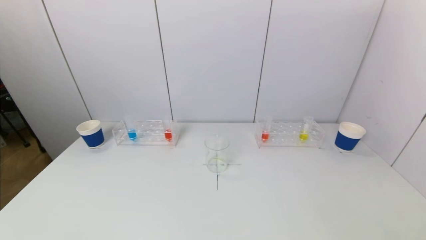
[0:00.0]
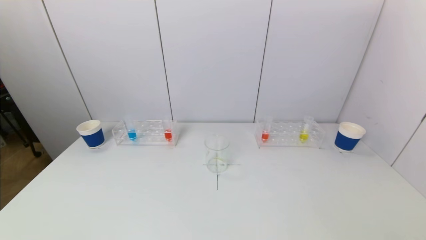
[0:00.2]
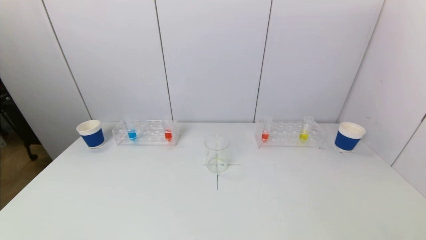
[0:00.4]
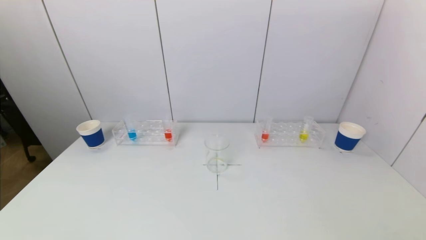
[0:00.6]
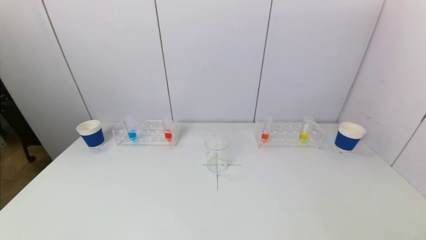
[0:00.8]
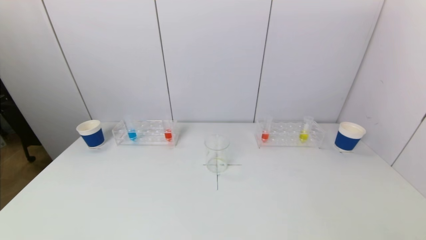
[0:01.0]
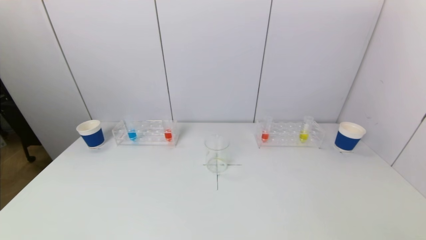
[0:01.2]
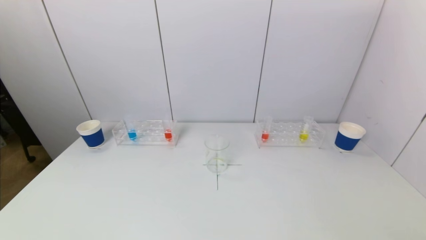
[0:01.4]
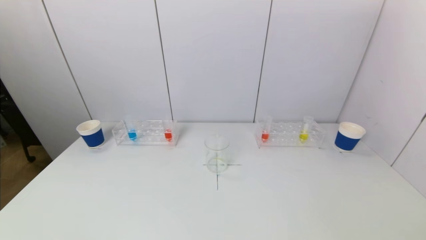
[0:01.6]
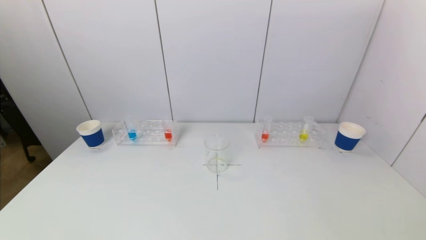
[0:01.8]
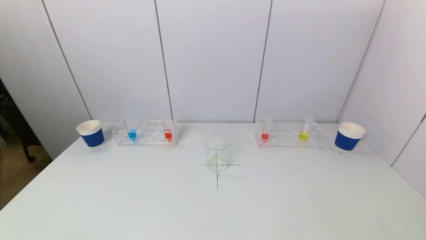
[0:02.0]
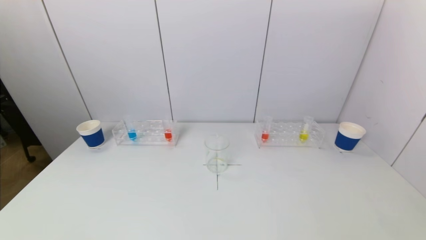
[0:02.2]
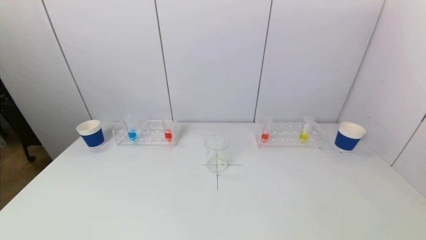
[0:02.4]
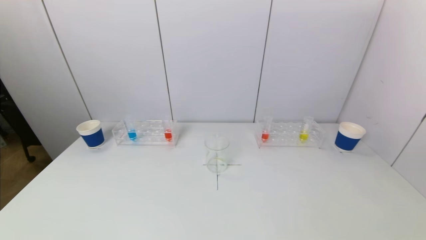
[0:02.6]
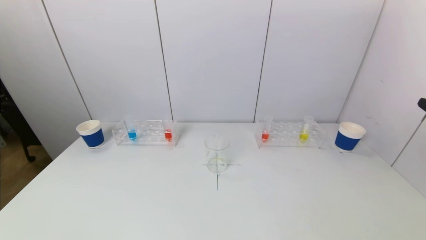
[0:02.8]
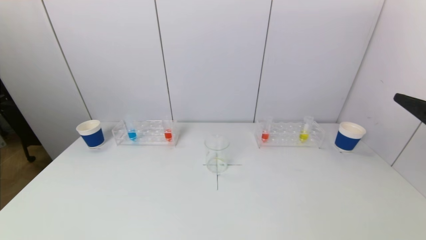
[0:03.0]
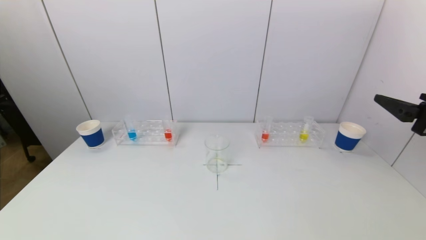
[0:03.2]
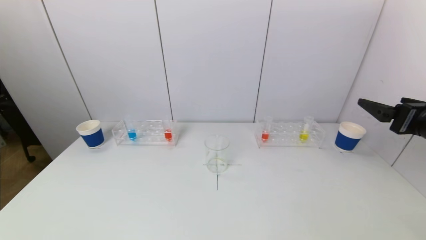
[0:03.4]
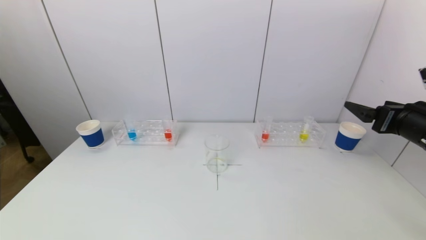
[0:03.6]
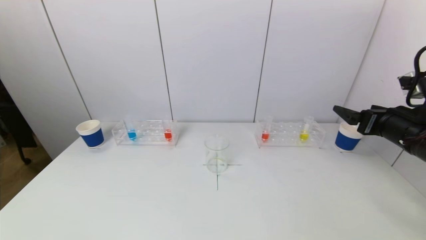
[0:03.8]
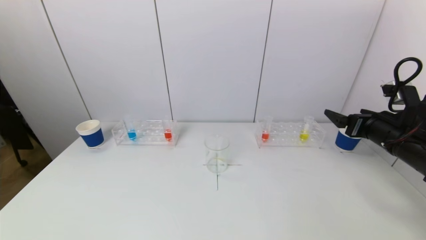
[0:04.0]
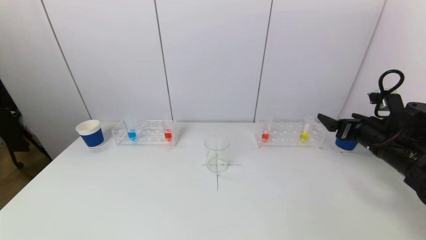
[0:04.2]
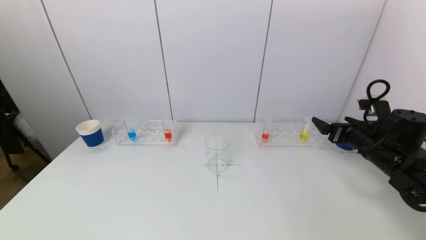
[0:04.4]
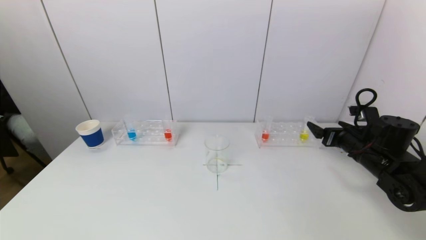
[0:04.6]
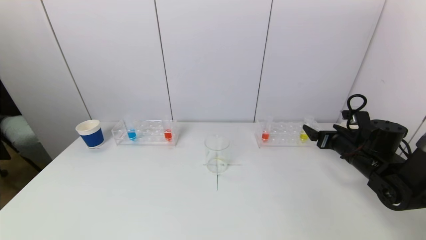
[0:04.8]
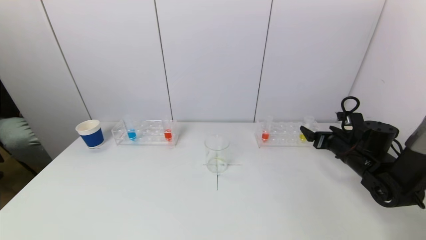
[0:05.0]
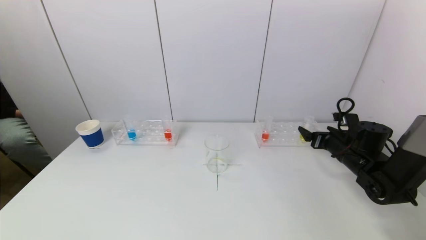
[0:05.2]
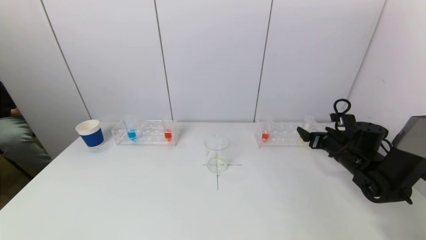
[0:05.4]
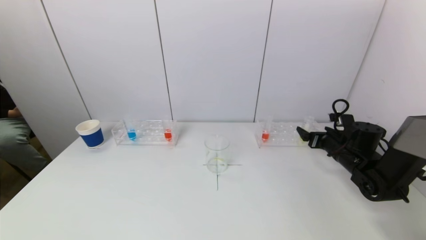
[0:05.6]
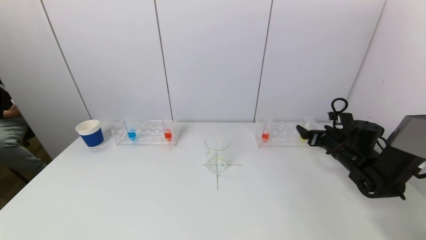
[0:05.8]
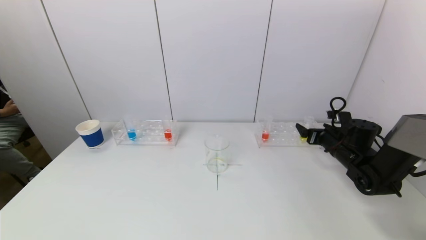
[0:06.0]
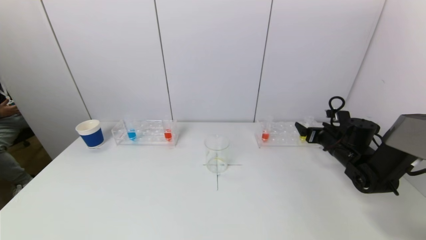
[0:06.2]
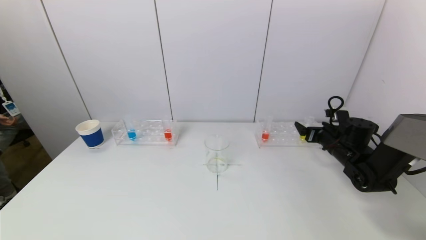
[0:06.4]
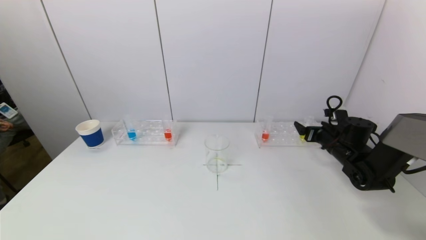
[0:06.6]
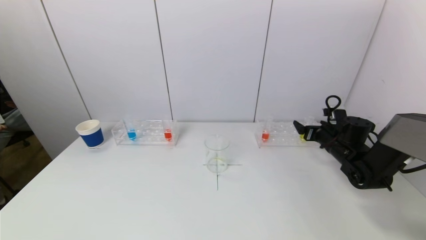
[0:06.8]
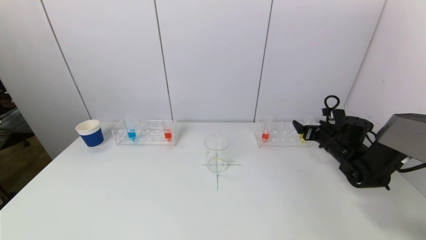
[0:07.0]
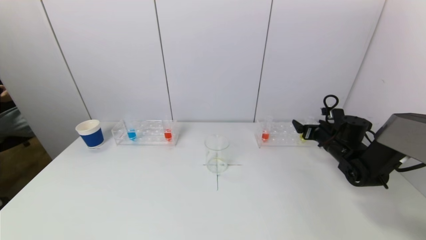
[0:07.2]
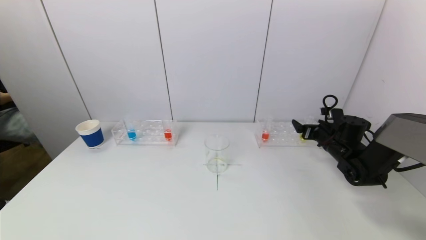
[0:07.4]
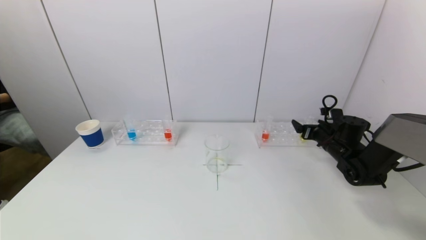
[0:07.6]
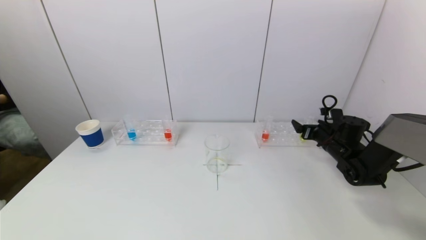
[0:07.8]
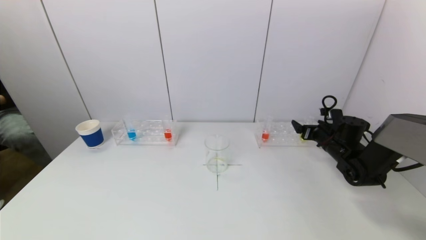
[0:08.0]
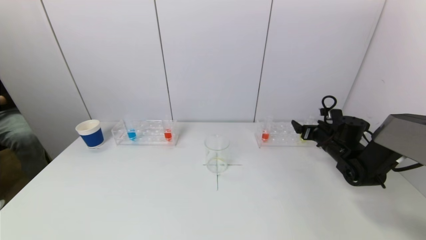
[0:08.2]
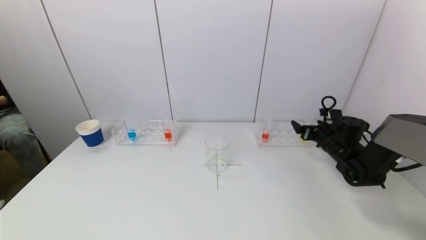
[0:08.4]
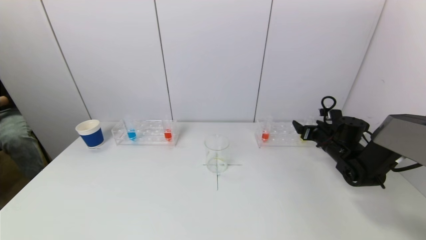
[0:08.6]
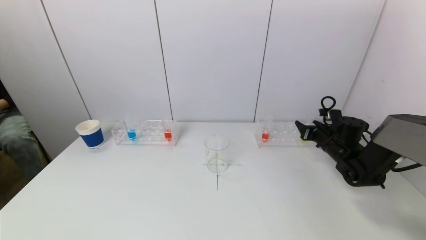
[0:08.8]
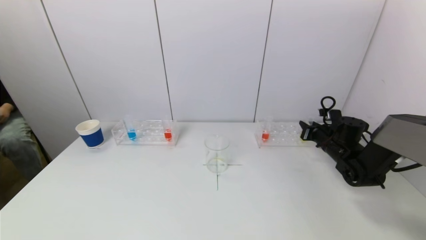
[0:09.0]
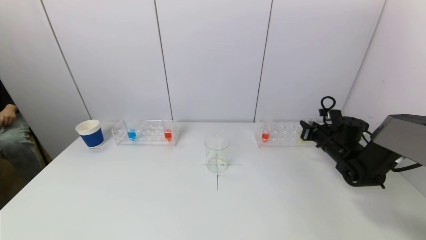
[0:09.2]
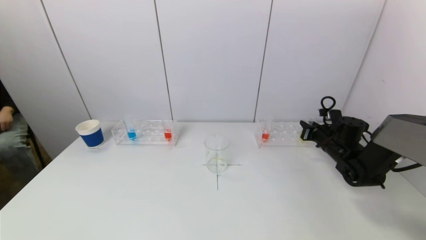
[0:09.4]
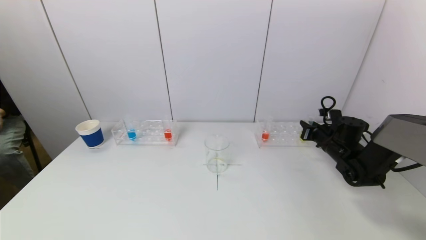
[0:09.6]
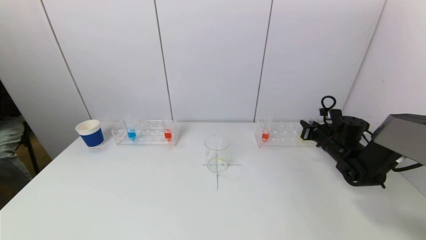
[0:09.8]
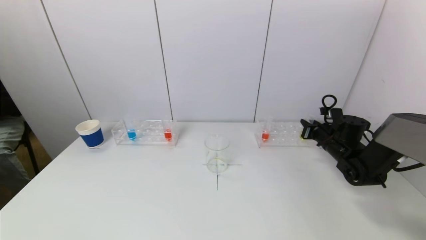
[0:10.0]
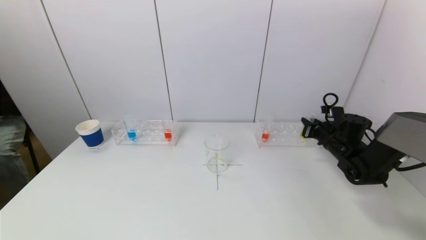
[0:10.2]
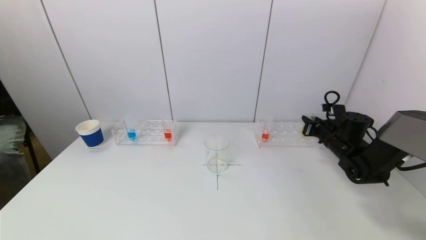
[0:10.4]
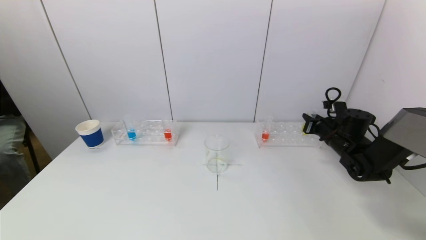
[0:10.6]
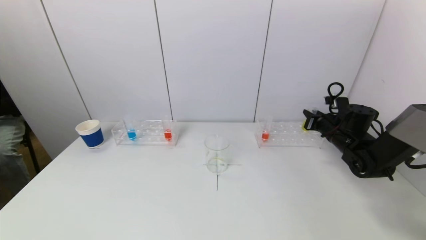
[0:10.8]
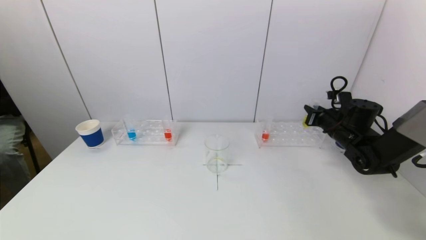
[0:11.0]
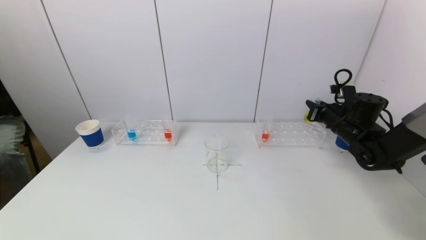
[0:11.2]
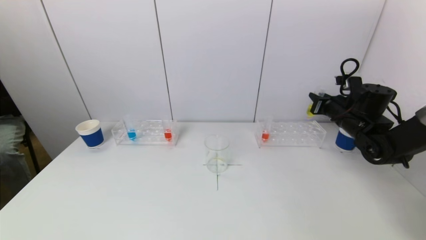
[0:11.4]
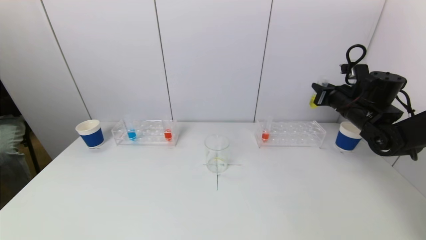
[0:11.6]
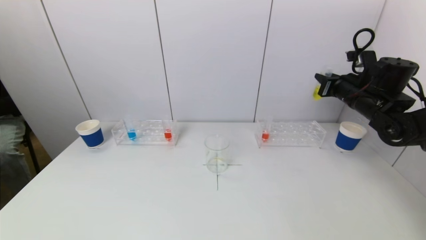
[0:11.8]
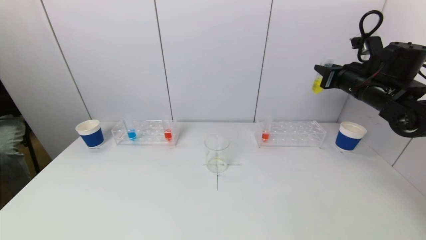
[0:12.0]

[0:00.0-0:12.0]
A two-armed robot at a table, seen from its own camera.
Task of the whole recording: pick up a test tube with pigment on left test tube rack and a test tube with pigment on right test tube rack by grippers and pour them into the beaker.
Step, 0:00.0 to 0:09.6: Grasp the yellow reagent with the right gripper.
0:01.6 to 0:03.0: The right gripper goes about 25 cm forward and upward.
0:03.0 to 0:04.4: The right gripper goes some 20 cm forward and downward.
0:04.4 to 0:06.0: The right gripper shifts about 10 cm forward and downward.
0:06.0 to 0:07.6: The grippers make only small movements.
0:07.6 to 0:09.0: The right gripper closes its fingers.
0:09.0 to 0:10.4: The grippers move only a little.
0:10.4 to 0:12.0: The right gripper moves upward, approximately 20 cm.

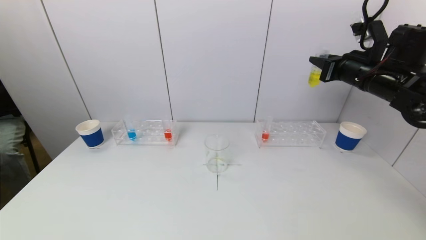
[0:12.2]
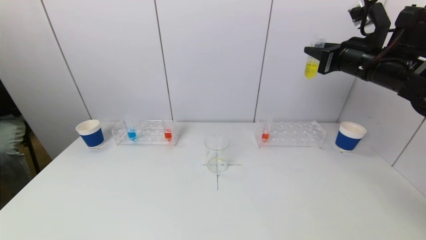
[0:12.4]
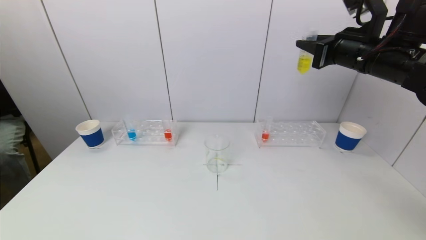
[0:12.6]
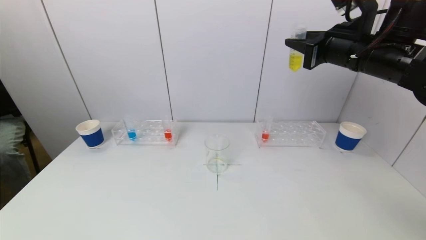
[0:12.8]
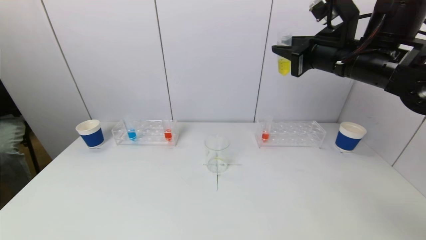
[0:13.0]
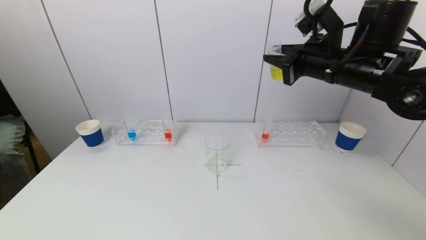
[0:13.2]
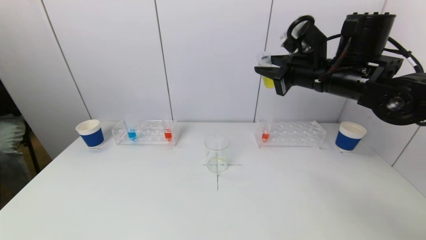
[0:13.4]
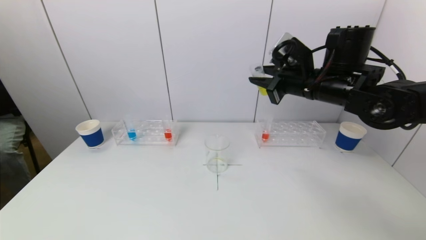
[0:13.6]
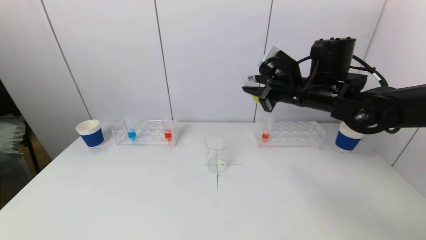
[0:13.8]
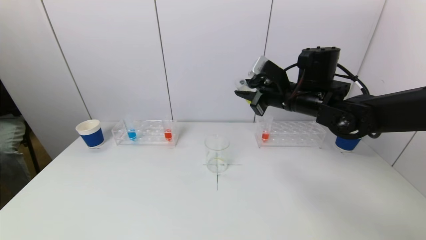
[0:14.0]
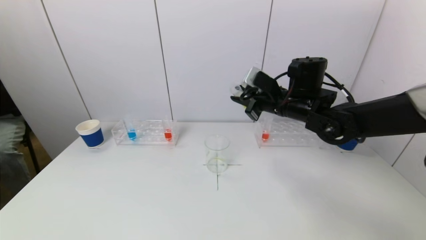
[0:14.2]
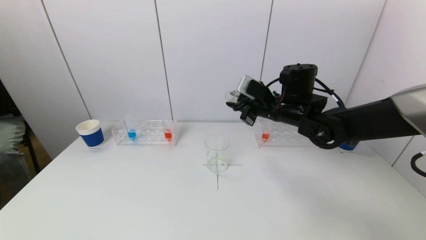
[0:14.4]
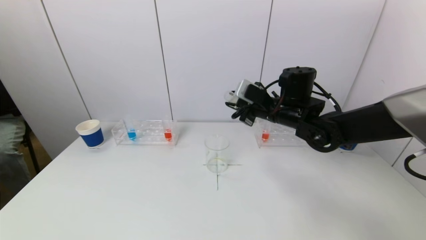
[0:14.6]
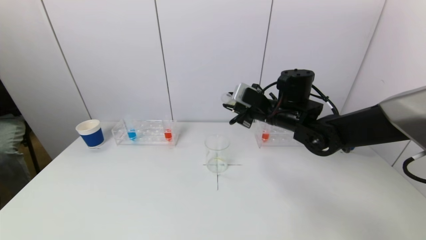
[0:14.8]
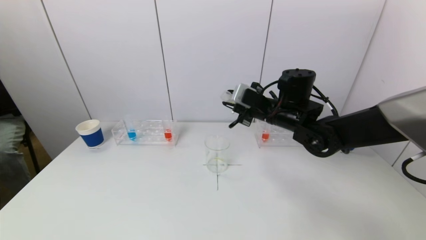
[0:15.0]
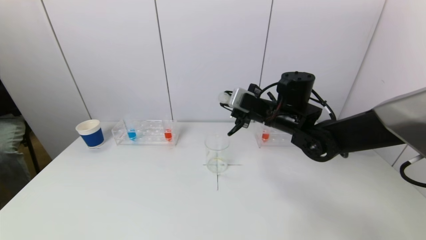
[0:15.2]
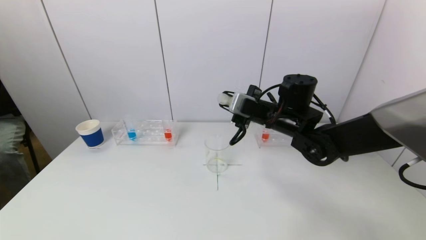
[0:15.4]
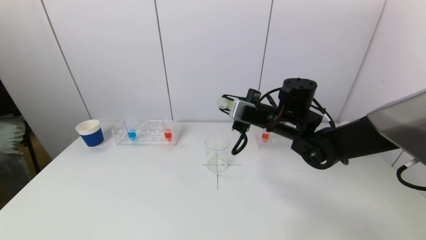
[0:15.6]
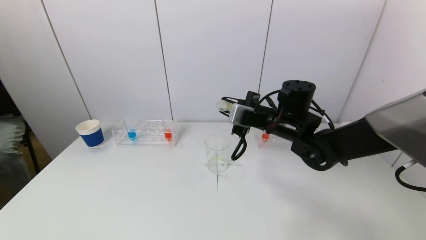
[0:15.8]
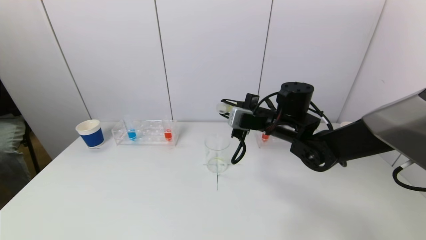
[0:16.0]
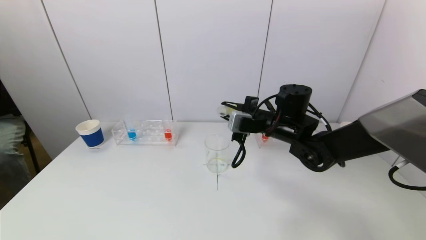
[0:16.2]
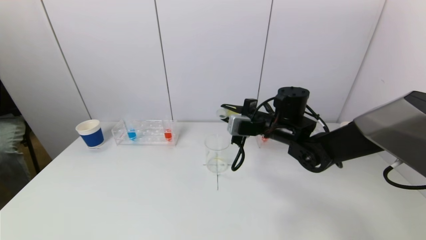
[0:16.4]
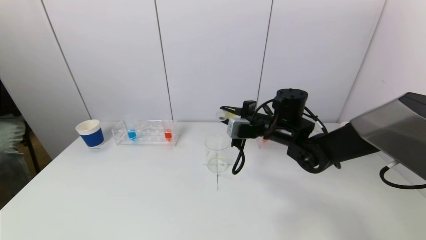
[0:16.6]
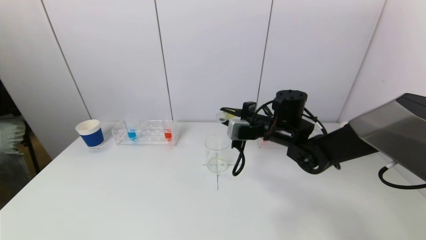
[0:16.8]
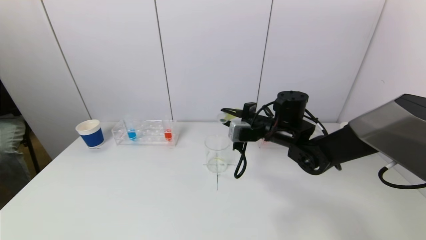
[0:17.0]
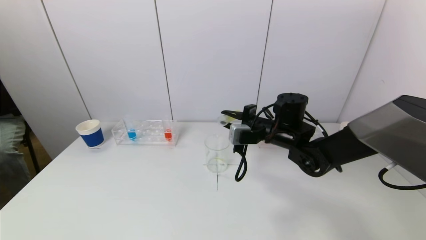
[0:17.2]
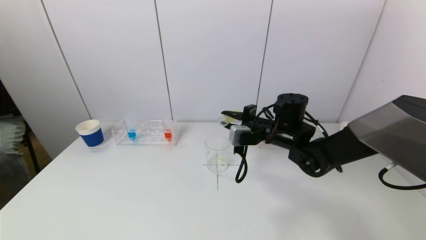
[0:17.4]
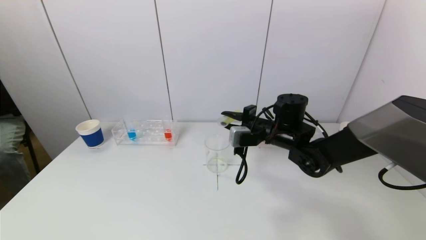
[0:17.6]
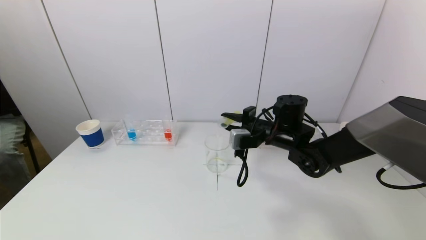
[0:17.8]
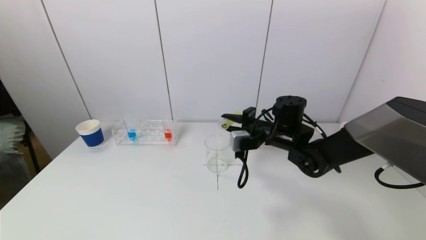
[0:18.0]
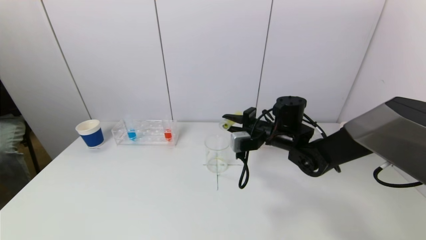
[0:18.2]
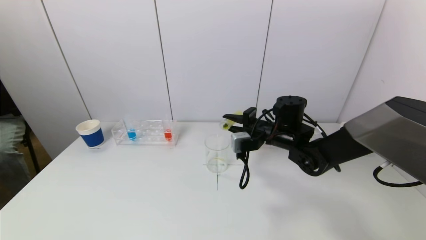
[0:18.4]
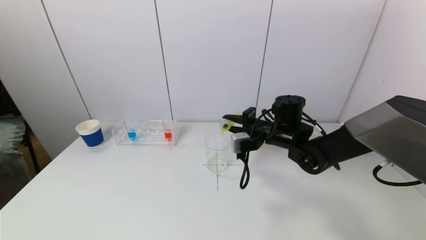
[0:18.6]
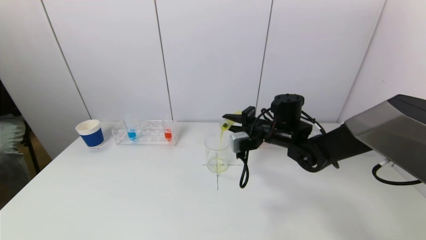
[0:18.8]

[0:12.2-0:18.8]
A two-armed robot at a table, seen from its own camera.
Task of the whole recording: pick up a test tube with pigment on left test tube rack and a test tube with pigment on right test tube rack by grippers and pour them into the beaker.
0:12.2 to 0:13.8: The right gripper travels to the left by approximately 10 cm.
0:13.8 to 0:15.4: The right gripper moves downward, some 5 cm.
0:15.4 to 0:17.2: The grippers make only small movements.
0:17.2 to 0:18.8: There are only small adjustments of the grippers.
